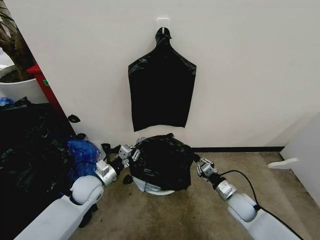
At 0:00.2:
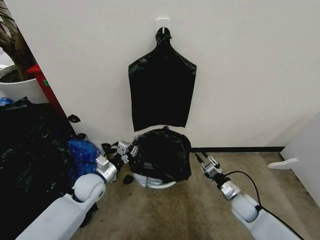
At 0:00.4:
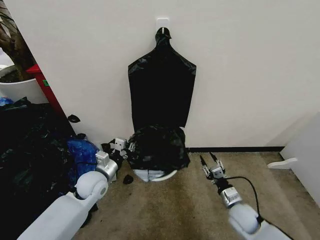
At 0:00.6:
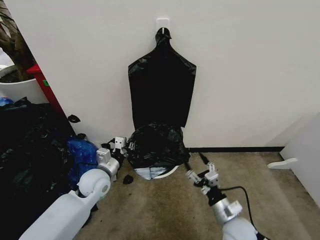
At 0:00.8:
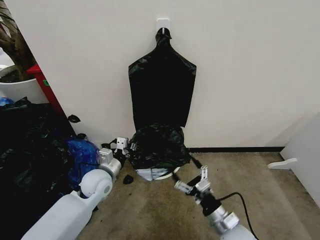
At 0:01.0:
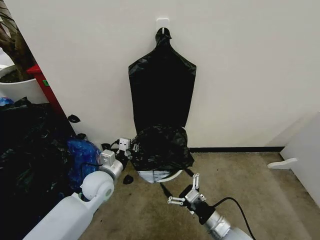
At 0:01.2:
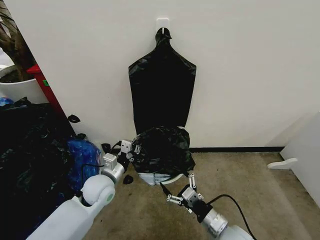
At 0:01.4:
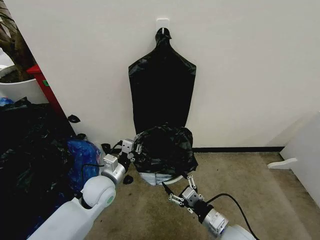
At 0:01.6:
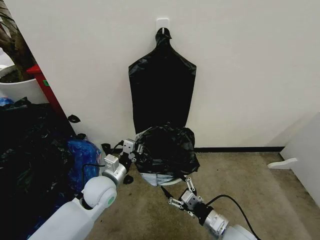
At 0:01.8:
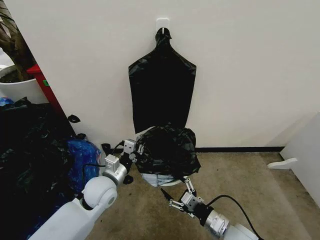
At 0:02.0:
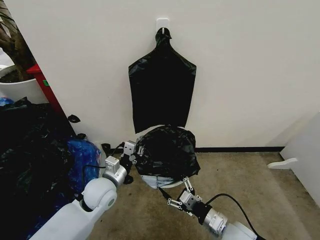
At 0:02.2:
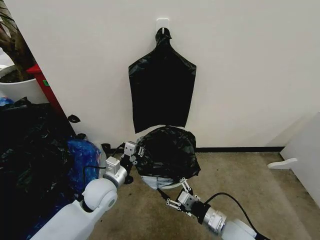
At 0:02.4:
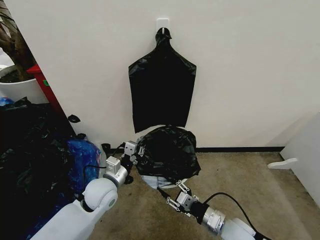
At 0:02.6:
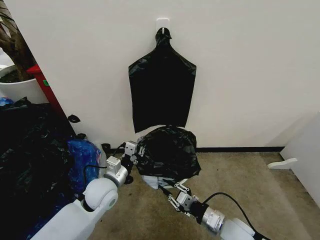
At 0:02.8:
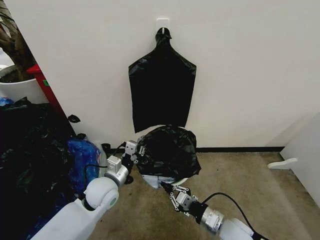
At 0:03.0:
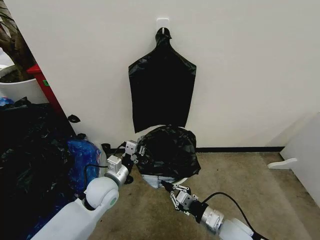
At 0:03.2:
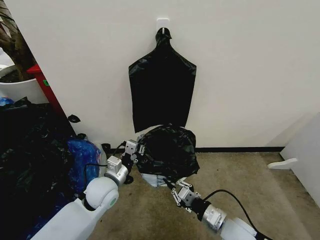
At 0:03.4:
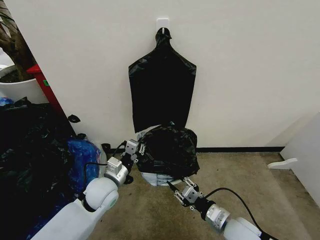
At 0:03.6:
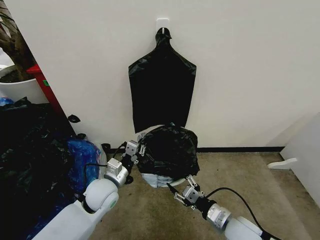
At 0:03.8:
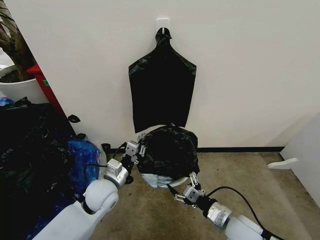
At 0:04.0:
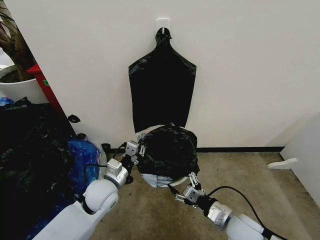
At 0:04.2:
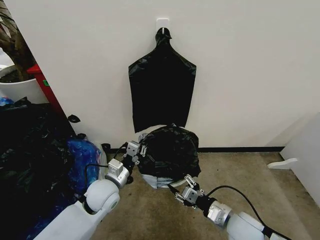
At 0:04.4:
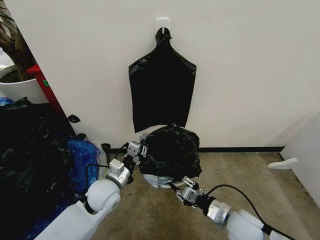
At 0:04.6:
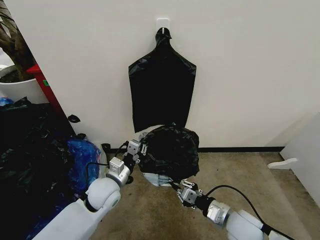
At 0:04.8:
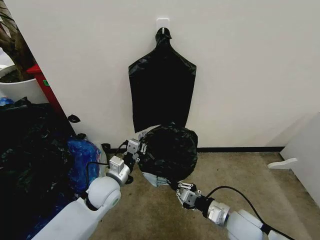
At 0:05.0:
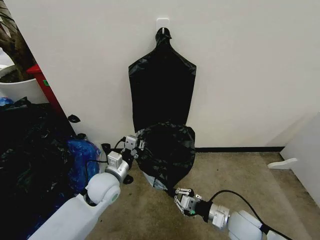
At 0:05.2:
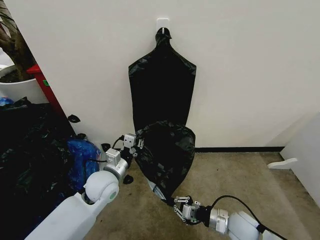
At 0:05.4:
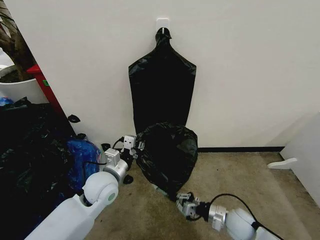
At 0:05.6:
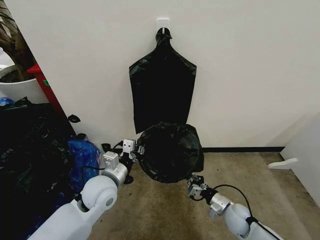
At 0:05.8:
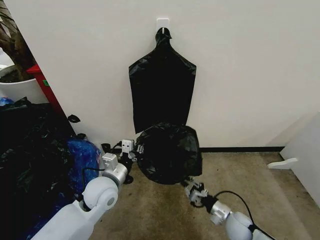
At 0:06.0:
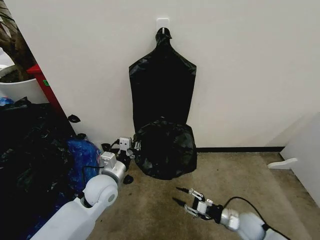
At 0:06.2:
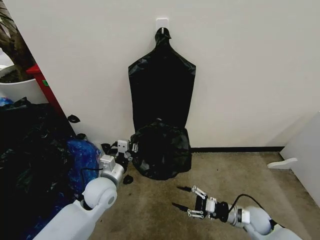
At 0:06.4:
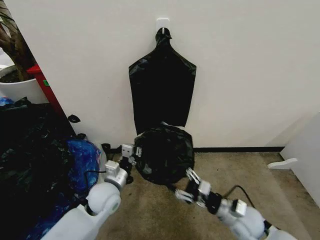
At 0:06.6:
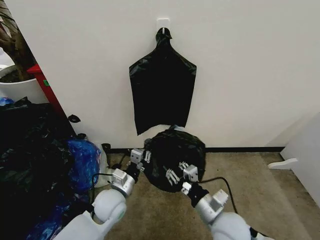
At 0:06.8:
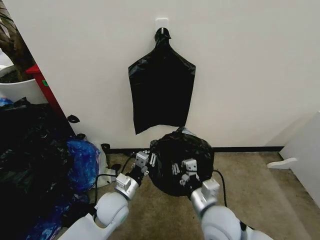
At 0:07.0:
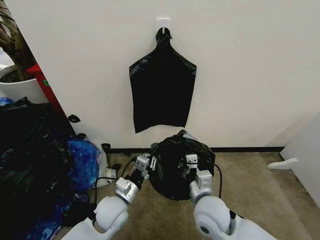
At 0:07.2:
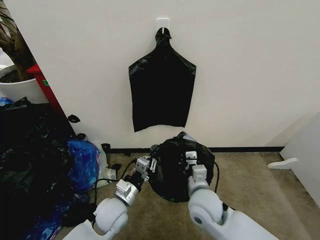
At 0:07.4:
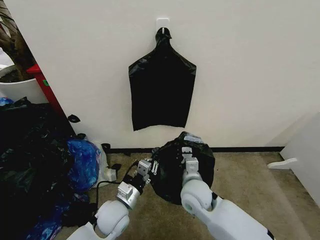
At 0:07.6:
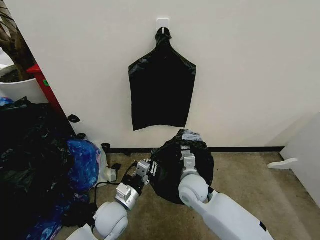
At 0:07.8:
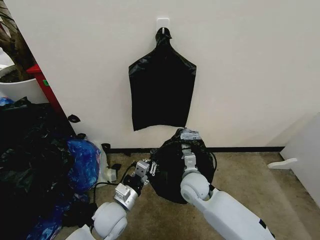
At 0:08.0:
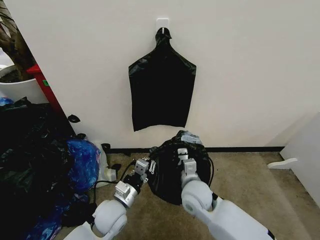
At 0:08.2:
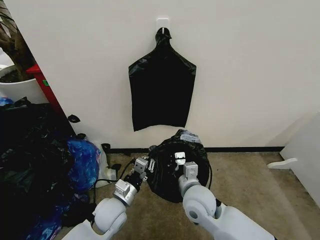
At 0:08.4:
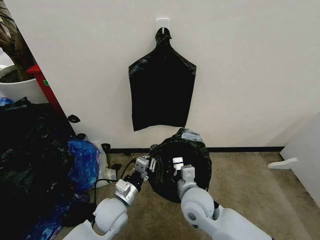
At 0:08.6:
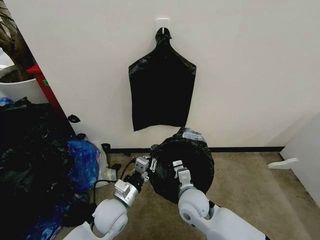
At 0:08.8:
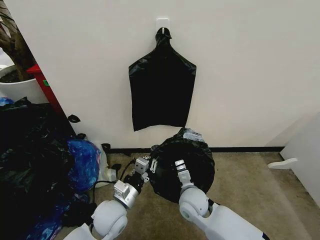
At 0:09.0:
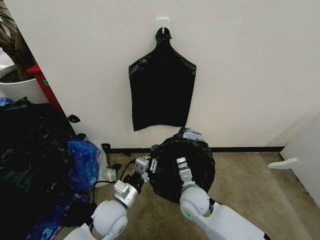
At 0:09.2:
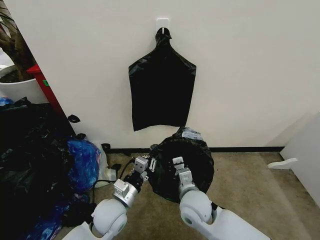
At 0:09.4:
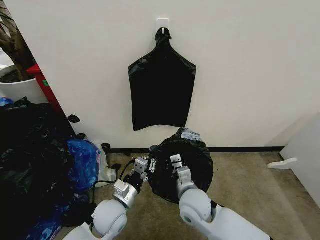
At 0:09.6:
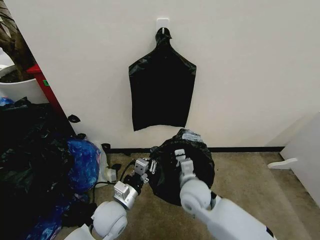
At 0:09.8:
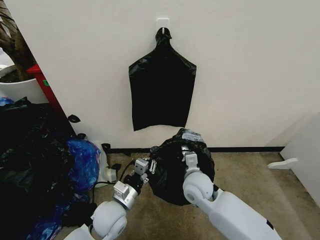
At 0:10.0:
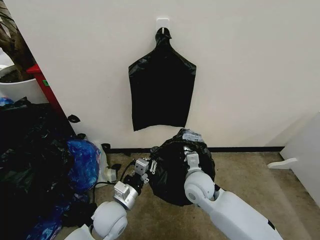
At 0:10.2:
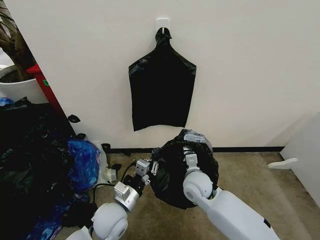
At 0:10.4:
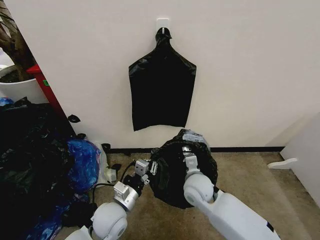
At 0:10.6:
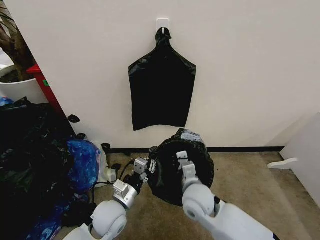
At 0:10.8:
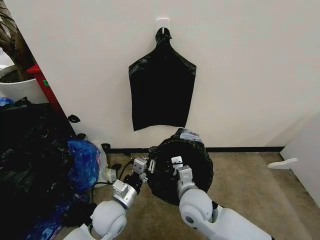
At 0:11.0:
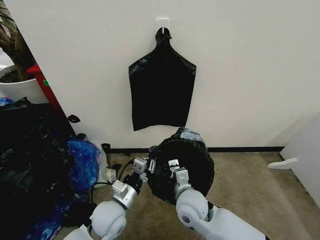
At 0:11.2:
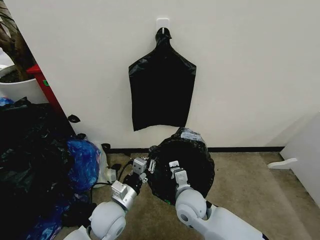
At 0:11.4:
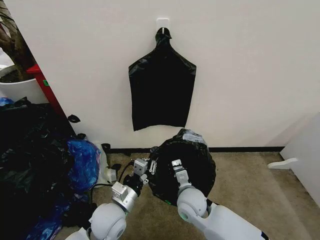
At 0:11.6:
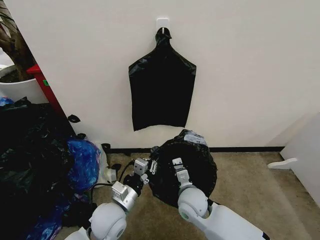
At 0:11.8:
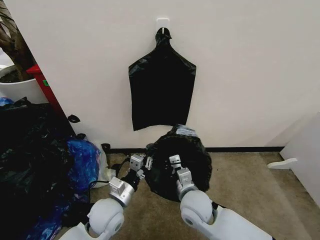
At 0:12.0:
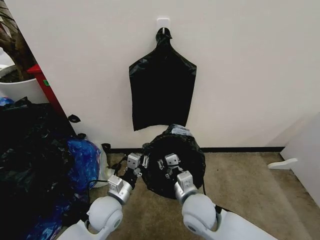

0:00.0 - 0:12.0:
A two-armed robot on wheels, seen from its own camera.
Task of the whole recording: Place the garbage bag over the trash bin.
0:00.0 - 0:01.6: The left gripper shifts some 5 cm to the right; the right gripper is displaced backward, to the left and upward by some 15 cm, and opens its fingers.
0:01.6 - 0:03.0: The right gripper closes.
0:03.0 - 0:04.4: The right gripper opens its fingers.
0:04.4 - 0:06.0: The right gripper is displaced downward and to the right by some 15 cm, and closes, then reopens.
0:06.0 - 0:07.6: The left gripper travels backward and downward by roughly 10 cm, while the right gripper shifts some 25 cm to the left and upward, and closes its fingers.
0:09.0 - 0:10.4: The grippers stay close to where they were, moving slightly.
0:10.4 - 0:12.0: The right gripper goes roughly 10 cm backward.

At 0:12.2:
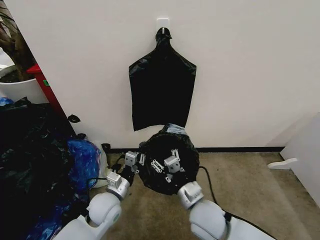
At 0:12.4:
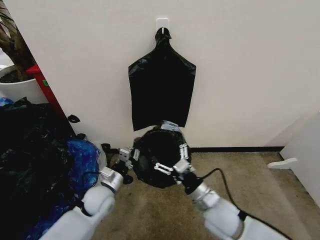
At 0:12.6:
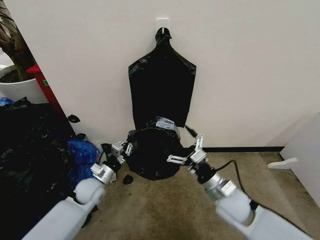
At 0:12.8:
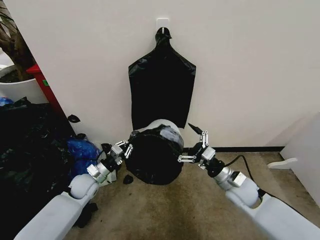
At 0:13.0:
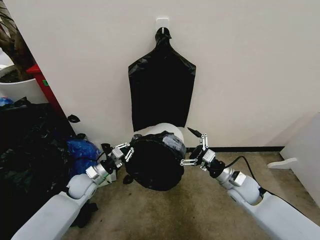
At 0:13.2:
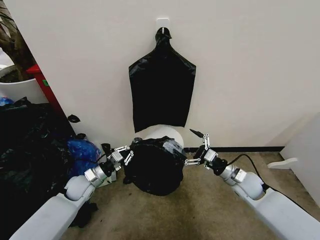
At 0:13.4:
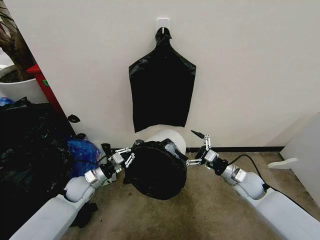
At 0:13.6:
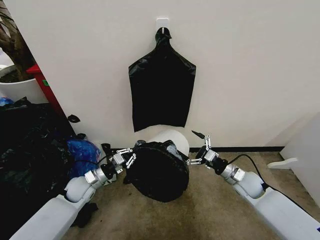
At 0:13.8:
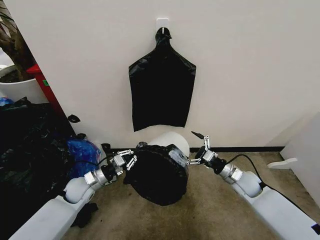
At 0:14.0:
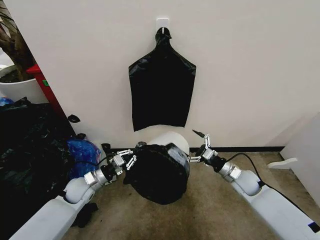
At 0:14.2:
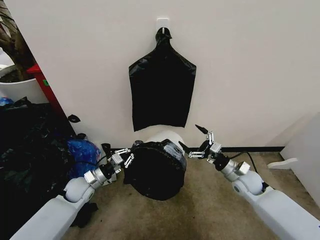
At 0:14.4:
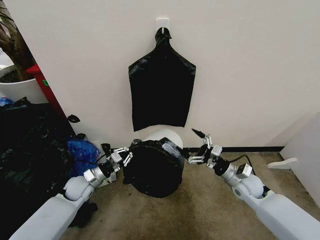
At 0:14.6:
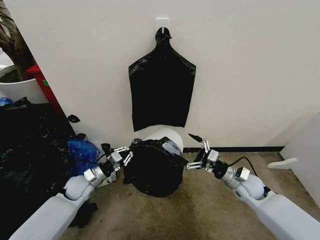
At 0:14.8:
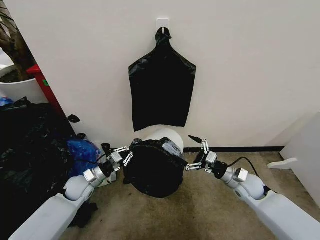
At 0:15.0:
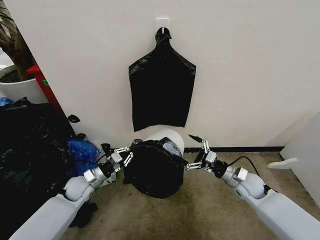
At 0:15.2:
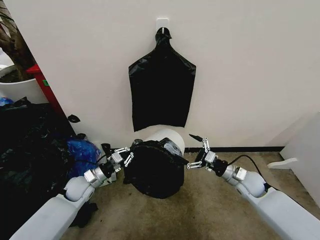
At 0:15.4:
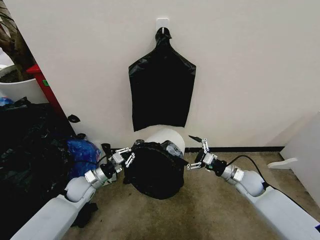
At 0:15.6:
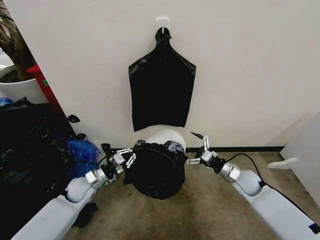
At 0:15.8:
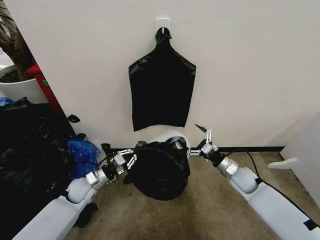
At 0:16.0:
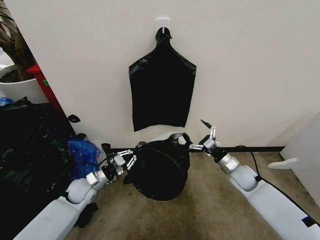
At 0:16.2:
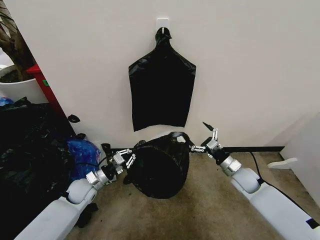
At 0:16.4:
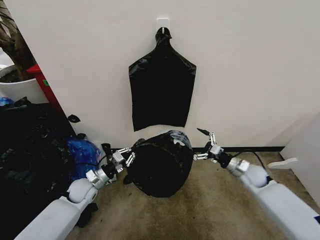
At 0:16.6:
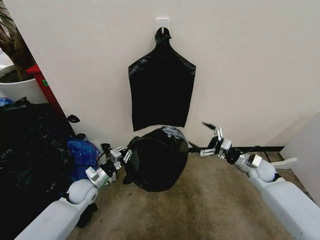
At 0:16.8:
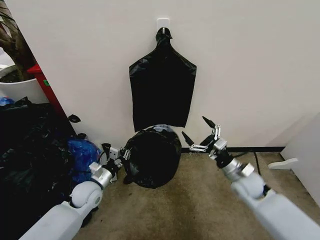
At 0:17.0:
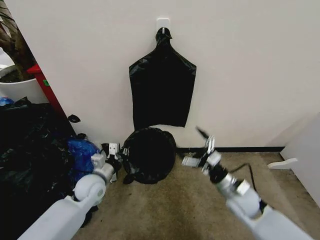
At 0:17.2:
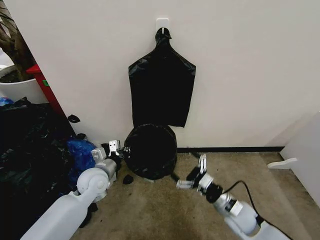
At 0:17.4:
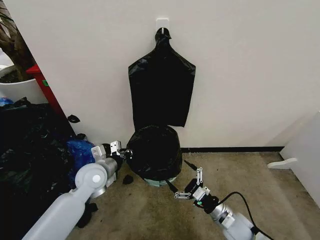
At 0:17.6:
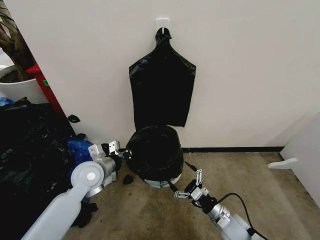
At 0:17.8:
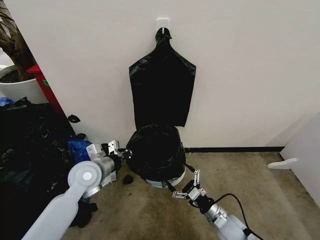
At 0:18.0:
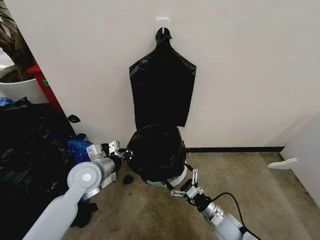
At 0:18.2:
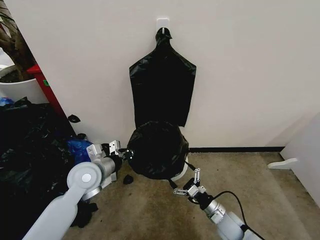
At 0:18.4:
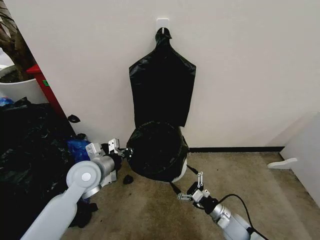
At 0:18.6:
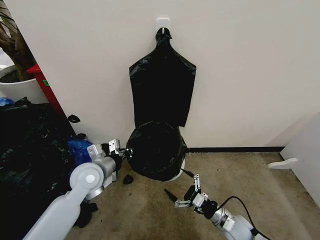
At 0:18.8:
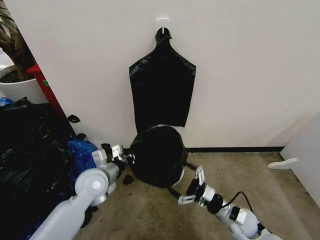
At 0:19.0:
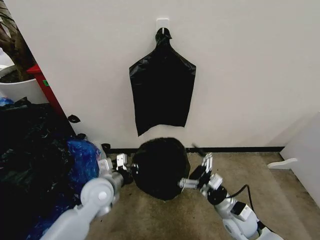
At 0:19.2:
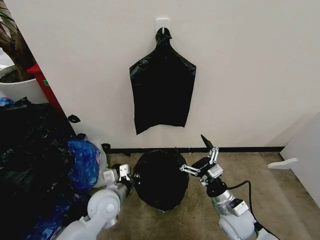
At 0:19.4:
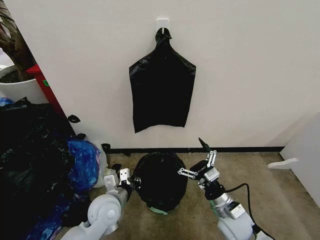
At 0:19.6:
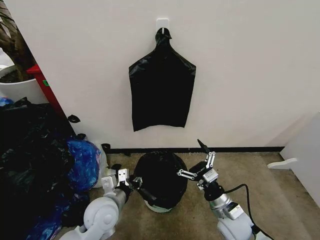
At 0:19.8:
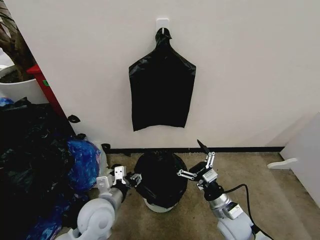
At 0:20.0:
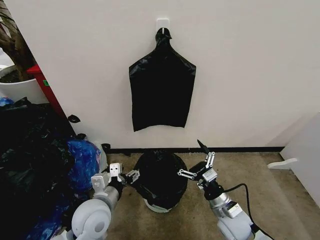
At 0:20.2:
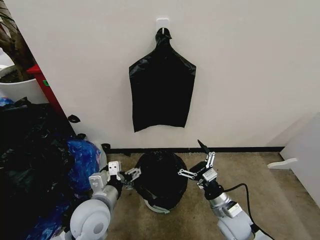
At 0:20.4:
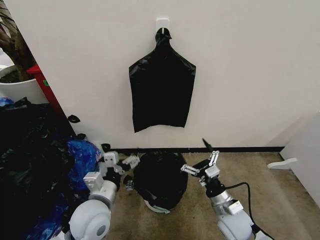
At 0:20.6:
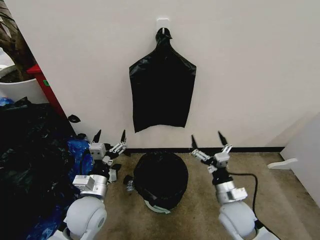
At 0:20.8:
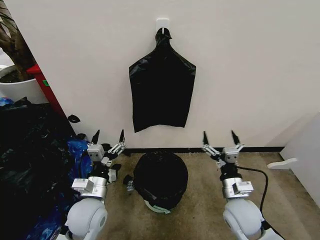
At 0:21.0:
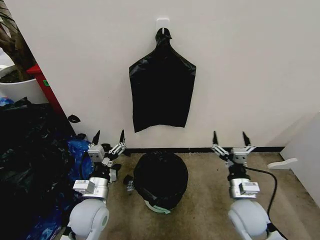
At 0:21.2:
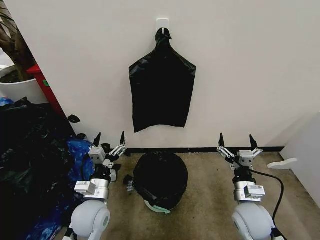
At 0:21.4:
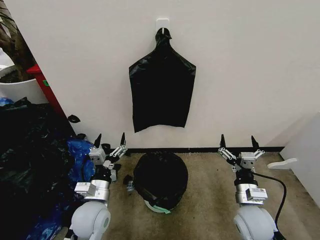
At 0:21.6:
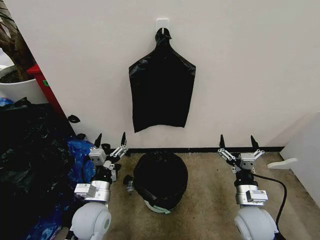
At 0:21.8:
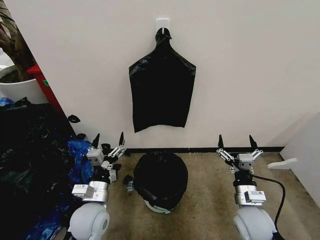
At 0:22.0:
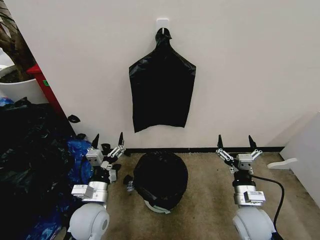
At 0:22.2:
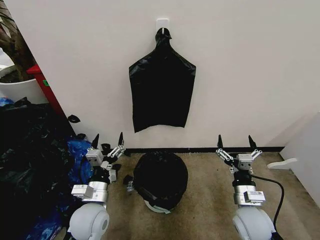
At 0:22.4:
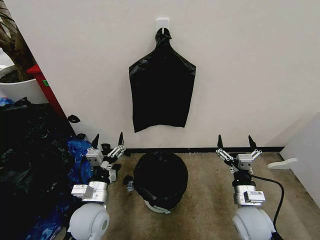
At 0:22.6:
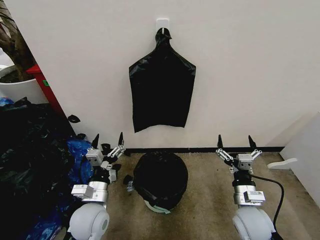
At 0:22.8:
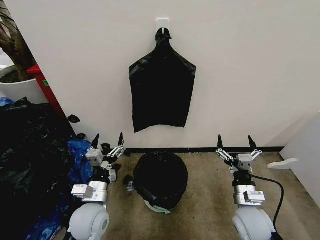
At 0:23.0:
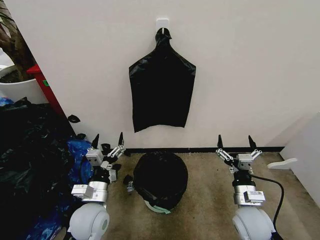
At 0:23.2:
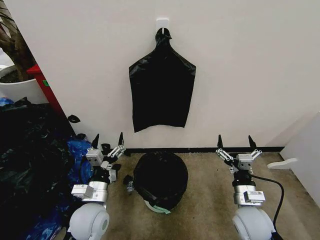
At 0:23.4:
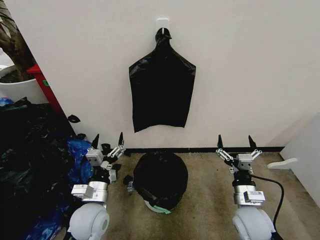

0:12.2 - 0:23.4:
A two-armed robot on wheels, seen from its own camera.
Task of the whole recording: Place the garbage bag over the trash bin.
0:12.2 - 0:13.8: The right gripper goes about 25 cm to the right and forward, and opens; the left gripper goes some 15 cm to the left and forward.
0:15.4 - 0:17.0: The left gripper shifts by roughly 5 cm, while the right gripper shifts by approximately 5 cm.
0:17.0 - 0:18.6: The left gripper moves upward, roughly 10 cm, while the right gripper moves downward and backward, roughly 15 cm.
0:18.6 - 0:20.2: The right gripper goes some 10 cm upward; the left gripper moves backward, approximately 10 cm, and opens.
0:20.2 - 0:21.8: The right gripper moves roughly 5 cm.
0:21.8 - 0:23.4: Both grippers stay about where they are.
